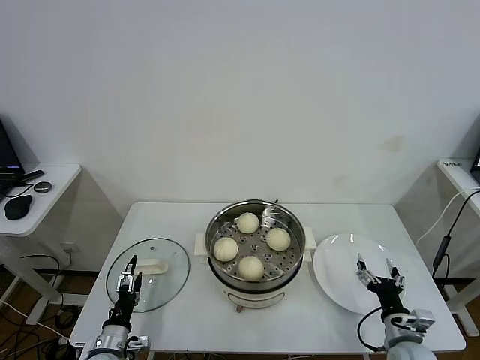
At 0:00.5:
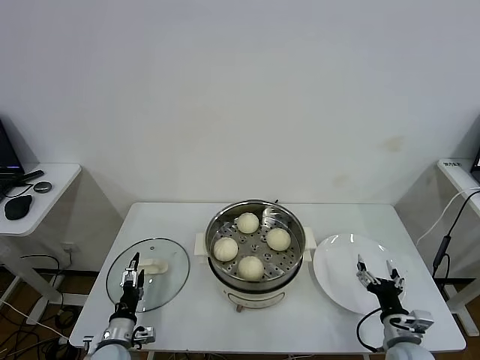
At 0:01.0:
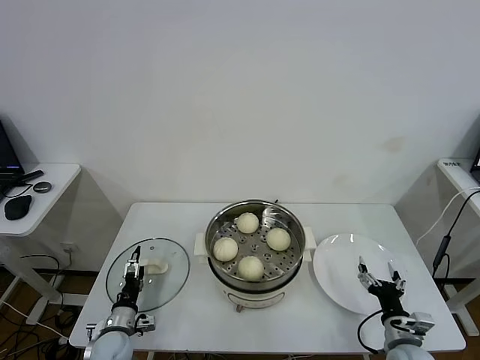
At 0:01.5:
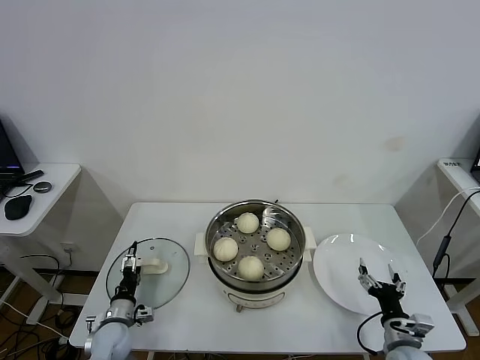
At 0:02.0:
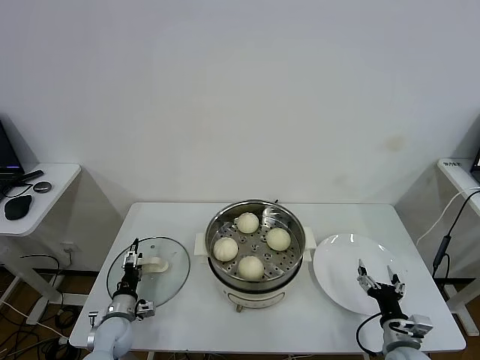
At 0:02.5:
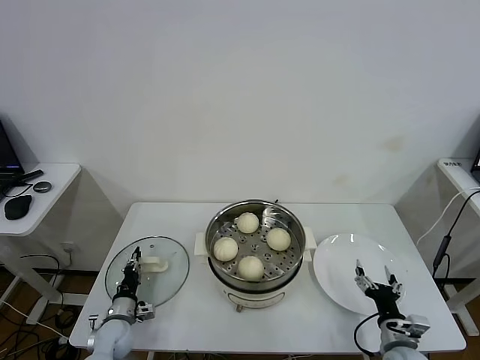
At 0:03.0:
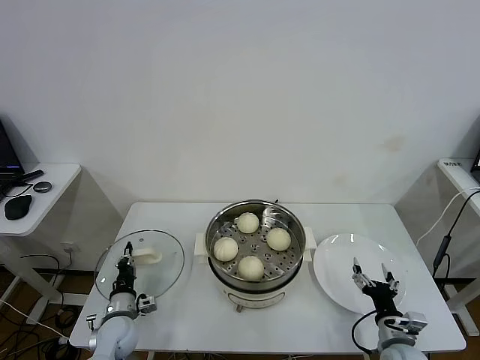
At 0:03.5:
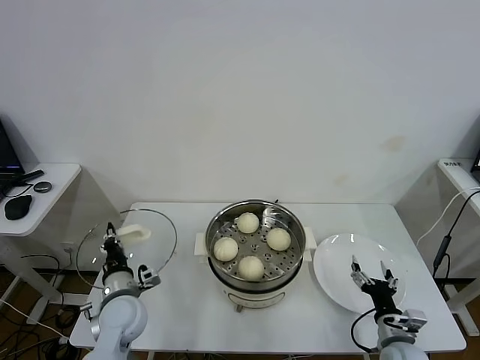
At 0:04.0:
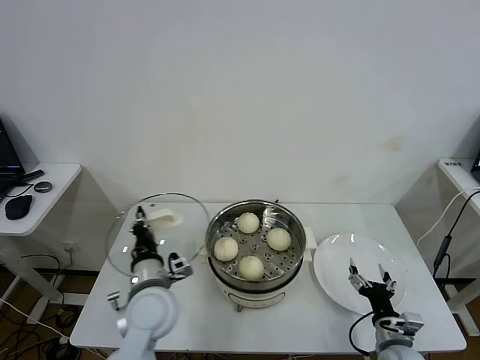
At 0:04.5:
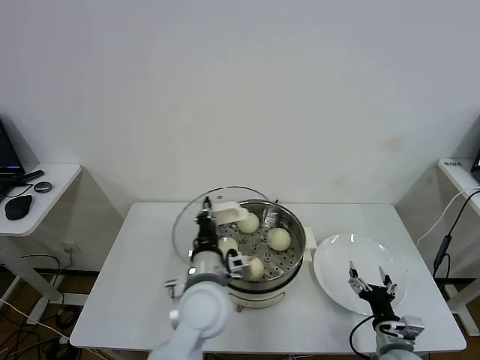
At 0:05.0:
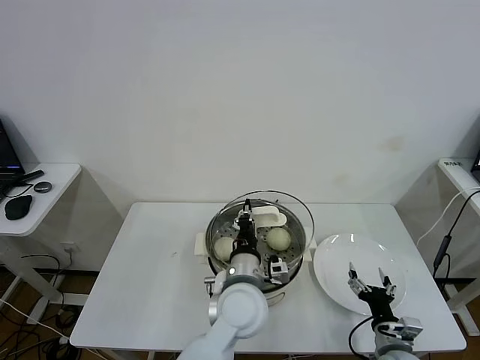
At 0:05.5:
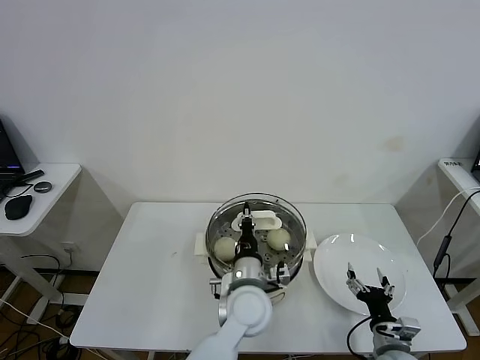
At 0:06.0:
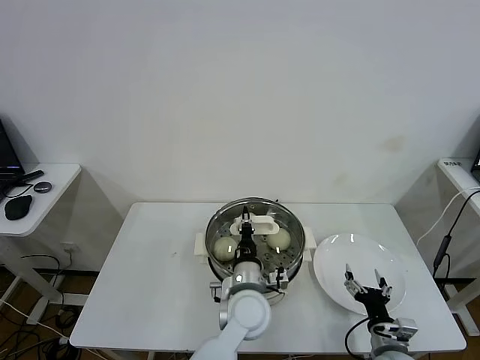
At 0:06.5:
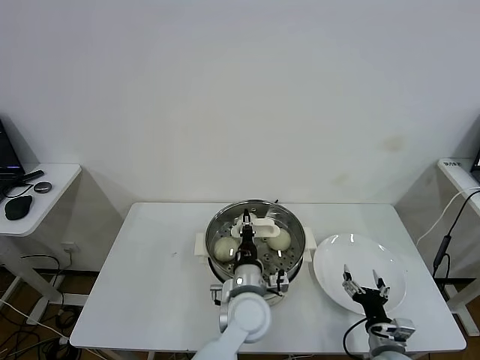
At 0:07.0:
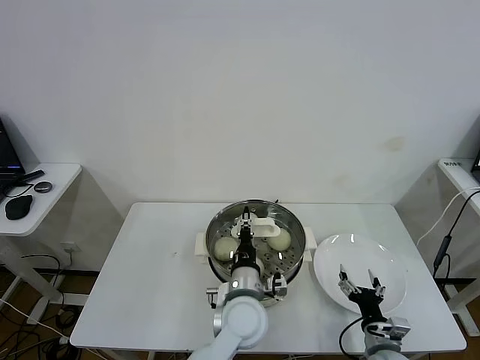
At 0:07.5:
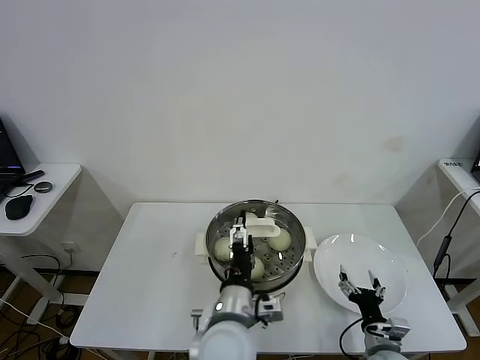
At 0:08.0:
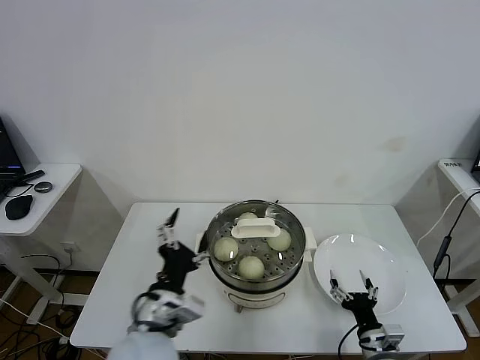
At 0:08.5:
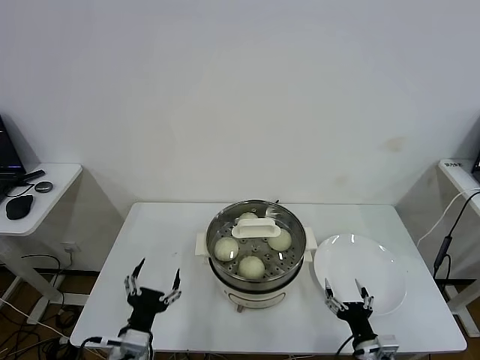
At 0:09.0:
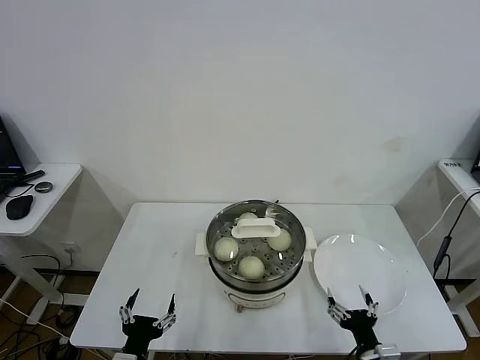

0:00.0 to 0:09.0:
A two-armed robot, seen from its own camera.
Task of the whole recording: take steamed baozi put them in steamer.
Step, 0:00.0 to 0:02.5: Grasp the pot lid with left gripper.
Step, 0:03.0 to 0:07.0: Place the pot lid on the steamer with left gripper.
0:00.0 to 0:02.0: The left gripper travels forward by about 10 cm.
0:02.0 to 0:04.5: The left gripper goes approximately 35 cm to the right and upward, and closes its fingers.
0:04.5 to 0:07.0: The left gripper is displaced to the right and downward by roughly 10 cm.
0:07.0 to 0:09.0: The left gripper moves to the left and backward, approximately 30 cm, and opens up, while the right gripper moves backward, approximately 5 cm.

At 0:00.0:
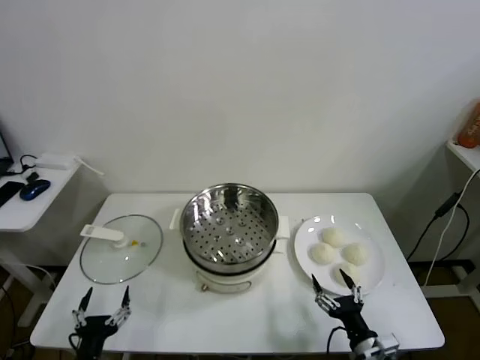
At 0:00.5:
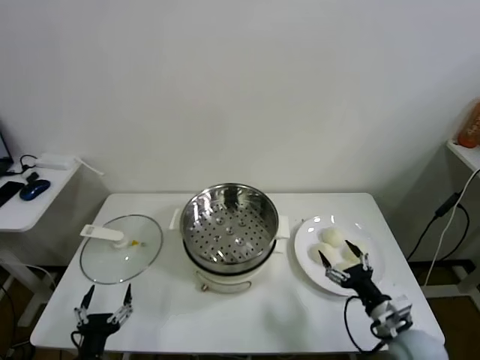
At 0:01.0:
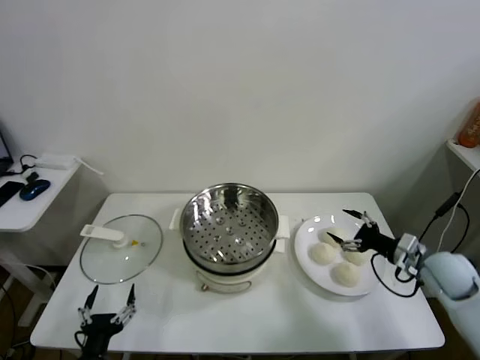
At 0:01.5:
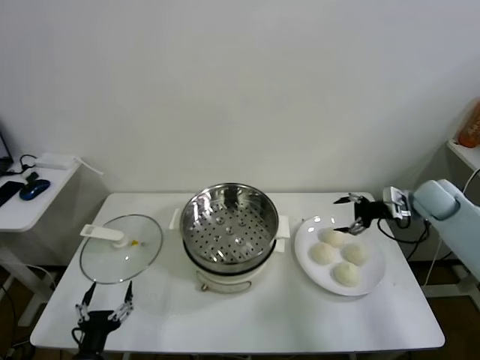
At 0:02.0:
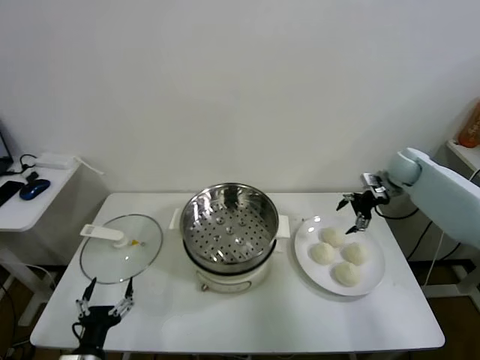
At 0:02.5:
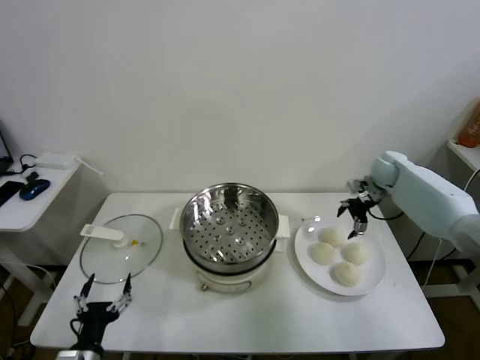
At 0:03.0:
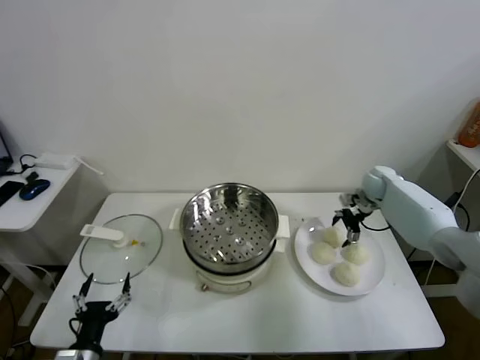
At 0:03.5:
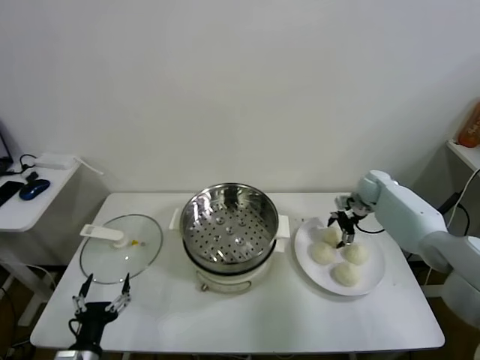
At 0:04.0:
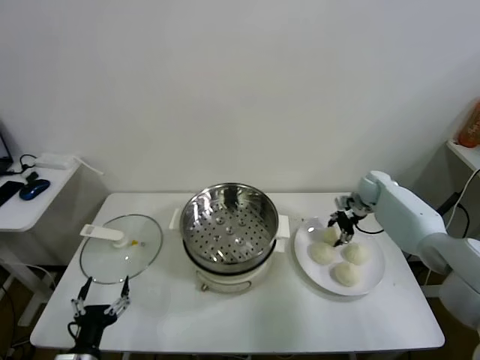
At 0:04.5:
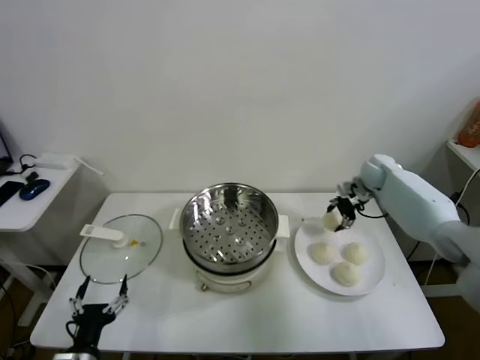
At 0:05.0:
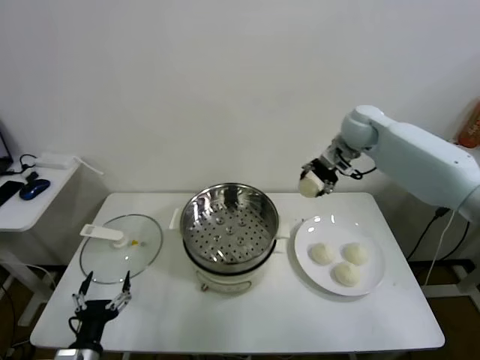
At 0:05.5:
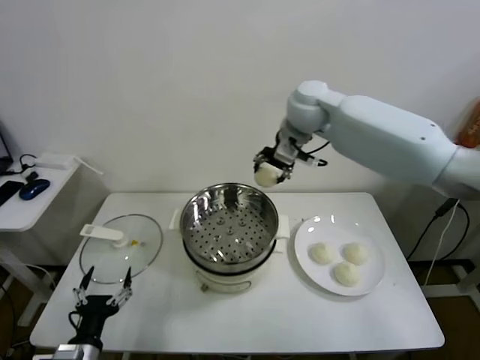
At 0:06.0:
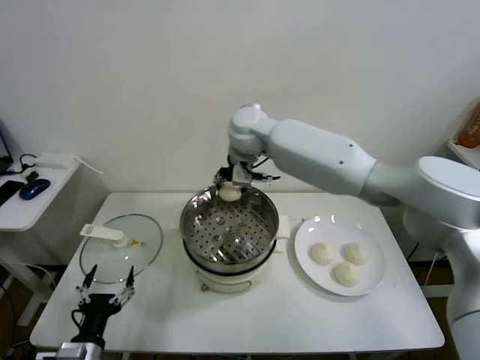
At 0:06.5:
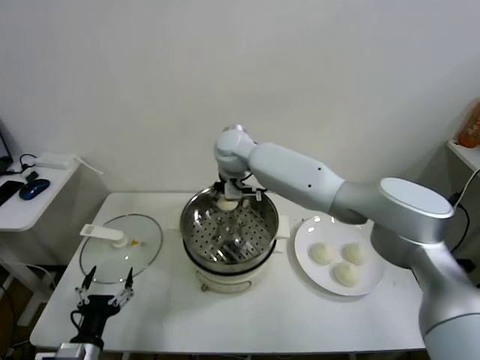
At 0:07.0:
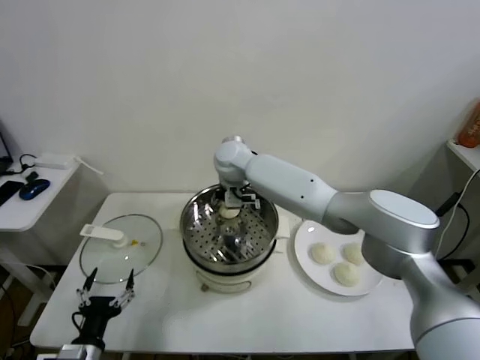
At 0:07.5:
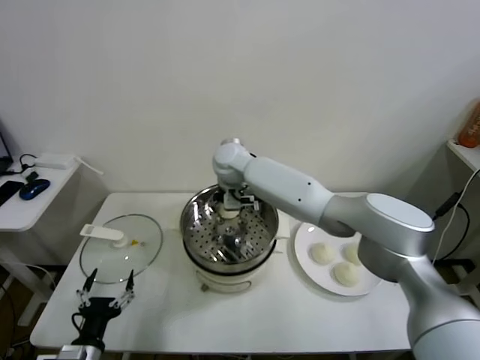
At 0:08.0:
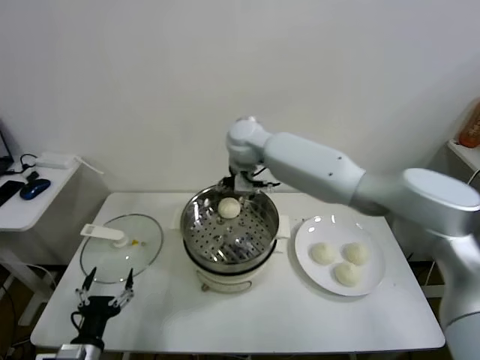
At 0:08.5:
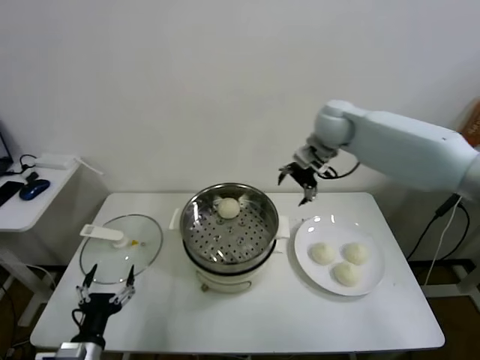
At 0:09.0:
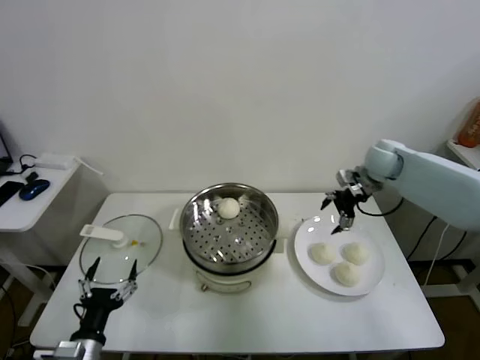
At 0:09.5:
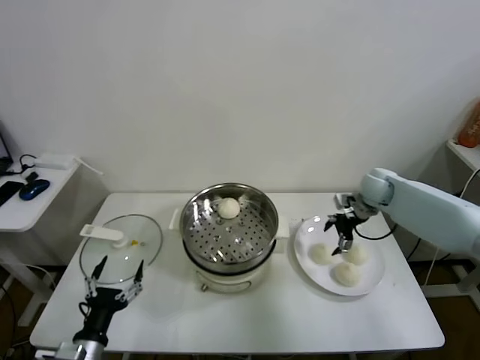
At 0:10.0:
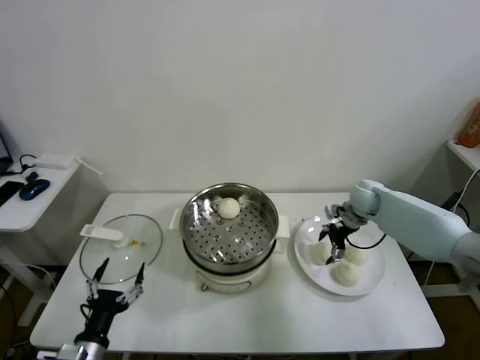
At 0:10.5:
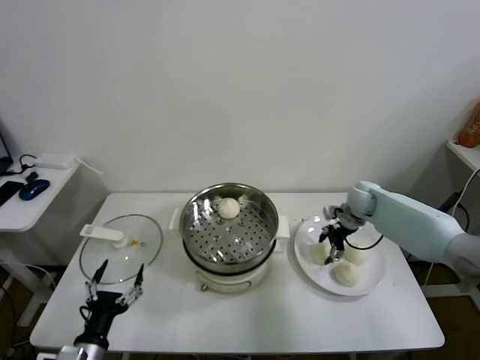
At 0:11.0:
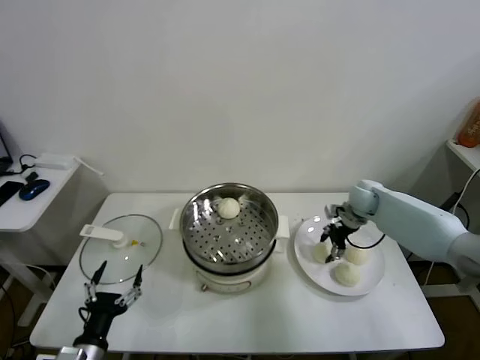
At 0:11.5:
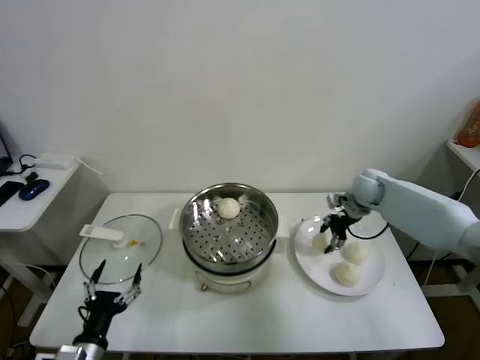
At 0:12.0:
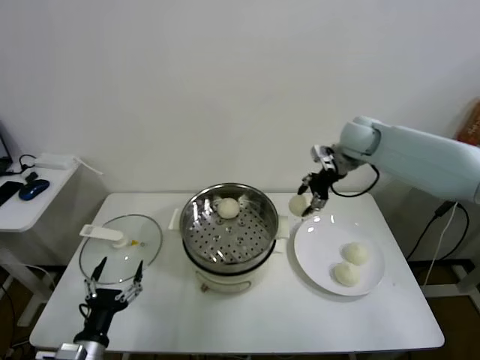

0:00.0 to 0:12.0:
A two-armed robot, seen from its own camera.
Task of the whole recording: take steamed baozi put them in steamer.
Step, 0:00.0 to 0:03.5: Grasp the baozi in the plate with right gripper.
Step, 0:04.0 to 0:07.5: Place the baozi on the steamer with right gripper.
Step, 0:08.0 to 0:10.5: Grasp the baozi in the plate with right gripper.
0:02.0 to 0:04.0: The right gripper goes about 10 cm downward, and closes its fingers.
0:04.0 to 0:06.0: The right gripper goes roughly 40 cm to the left and upward.
0:06.0 to 0:08.0: The right gripper moves some 10 cm downward and comes back, and opens up.
0:08.0 to 0:10.0: The right gripper travels to the right and downward by some 35 cm.
0:10.0 to 0:12.0: The right gripper travels upward by approximately 20 cm, and closes its fingers.

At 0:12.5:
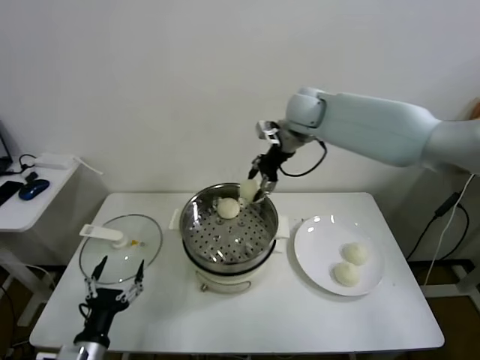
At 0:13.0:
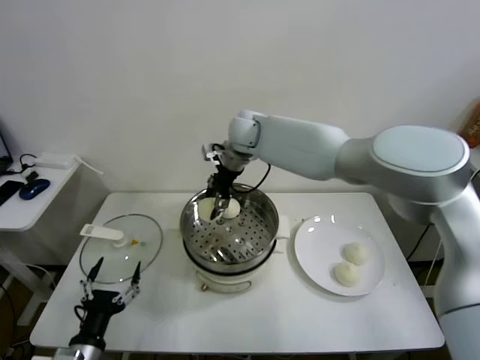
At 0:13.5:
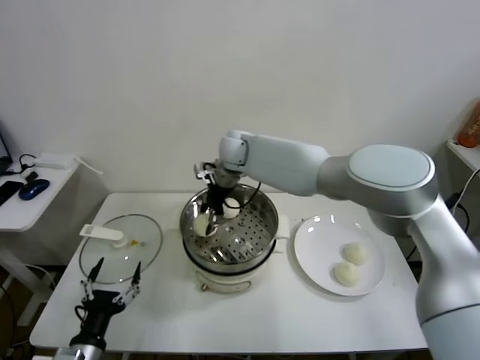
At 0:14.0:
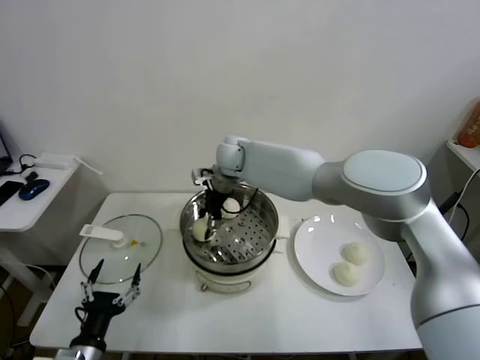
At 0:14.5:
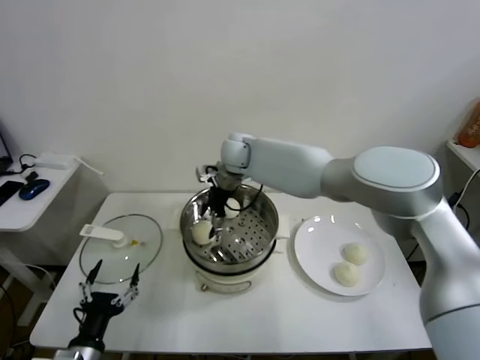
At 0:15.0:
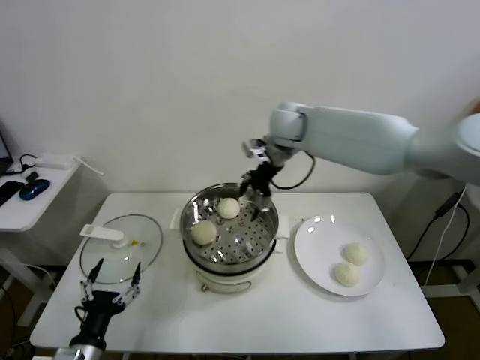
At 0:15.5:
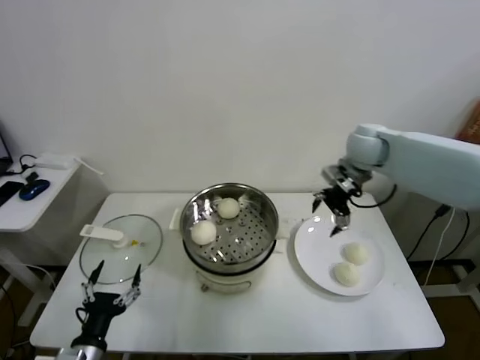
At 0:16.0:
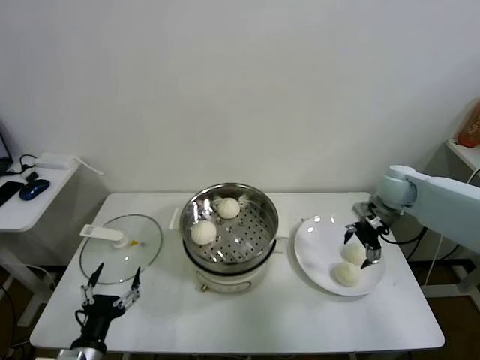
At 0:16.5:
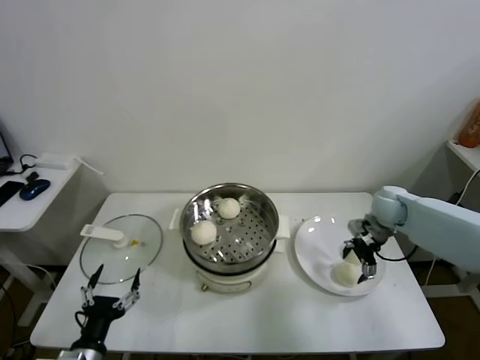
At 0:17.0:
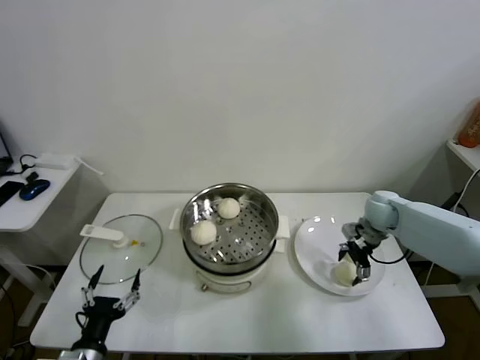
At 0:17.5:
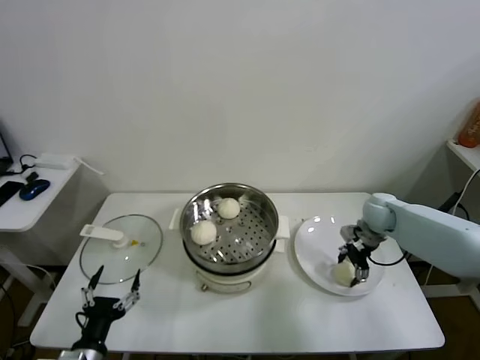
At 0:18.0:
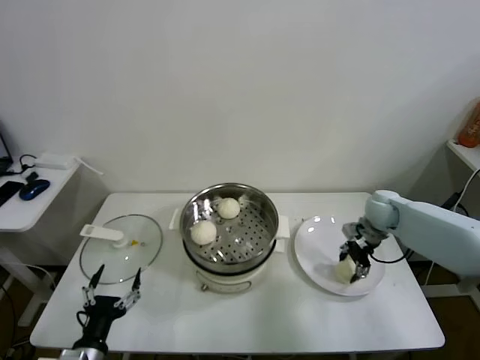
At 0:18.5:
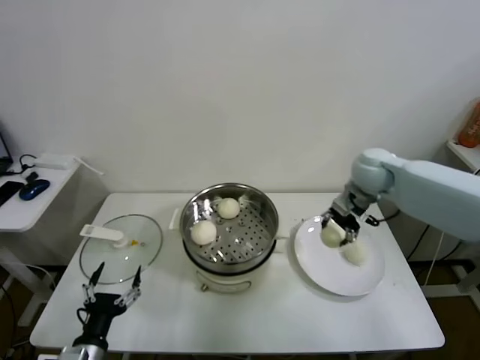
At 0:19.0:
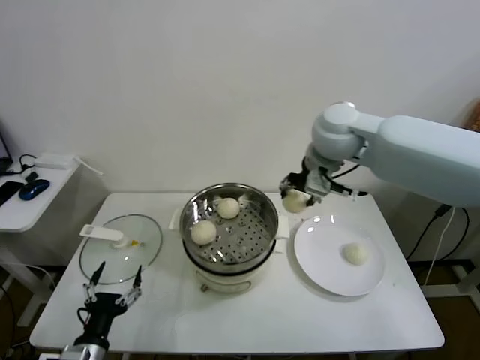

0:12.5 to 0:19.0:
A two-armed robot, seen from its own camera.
Task of the whole recording: take steamed baozi put them in steamer.
Step, 0:12.5 to 0:14.5: Place the baozi on the steamer with right gripper.
Step, 0:15.0 to 0:17.5: Grasp the baozi in the plate with right gripper.
0:12.5 to 0:14.5: The right gripper heads to the left and downward, covering about 15 cm, and opens its fingers.
0:14.5 to 0:17.0: The right gripper travels to the right by approximately 35 cm.
0:17.0 to 0:19.0: The right gripper shifts approximately 35 cm upward and to the left, and closes.
